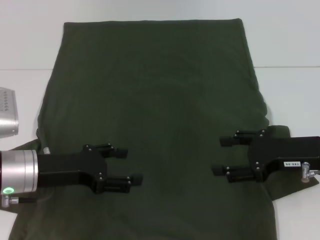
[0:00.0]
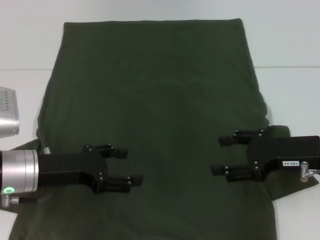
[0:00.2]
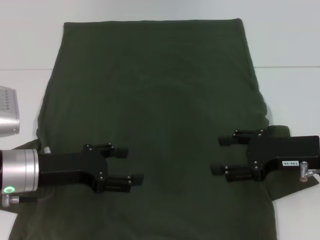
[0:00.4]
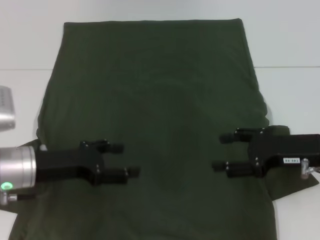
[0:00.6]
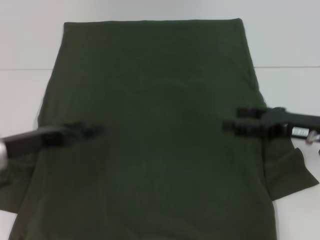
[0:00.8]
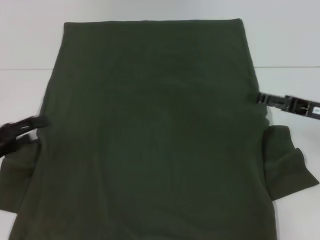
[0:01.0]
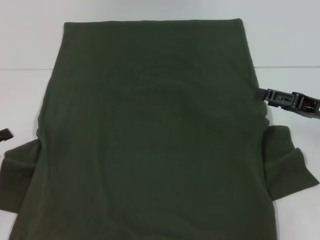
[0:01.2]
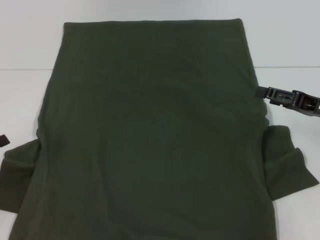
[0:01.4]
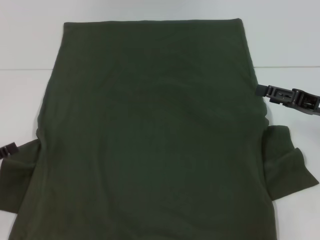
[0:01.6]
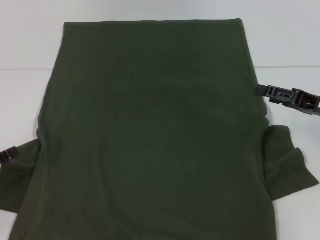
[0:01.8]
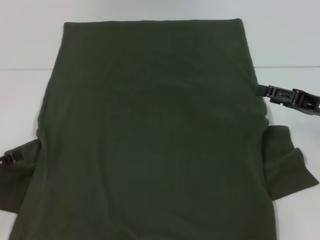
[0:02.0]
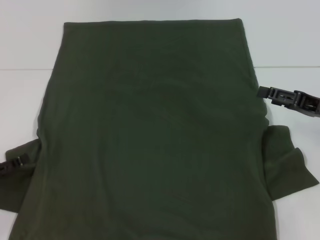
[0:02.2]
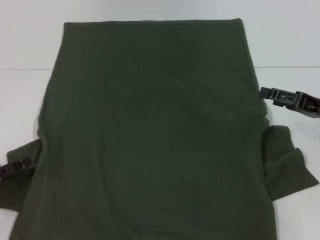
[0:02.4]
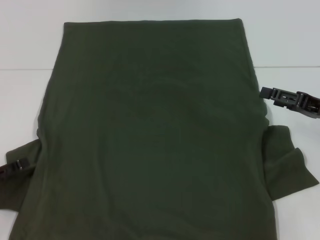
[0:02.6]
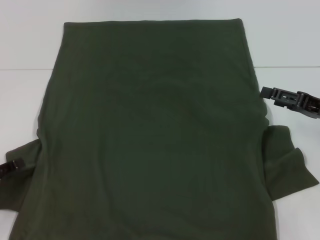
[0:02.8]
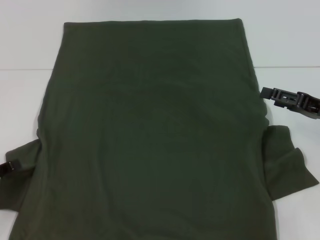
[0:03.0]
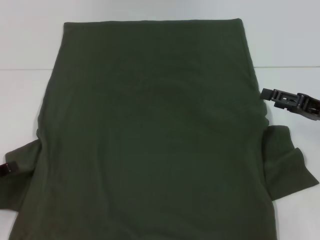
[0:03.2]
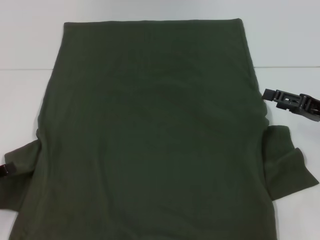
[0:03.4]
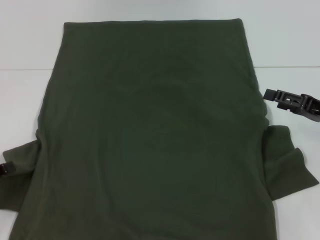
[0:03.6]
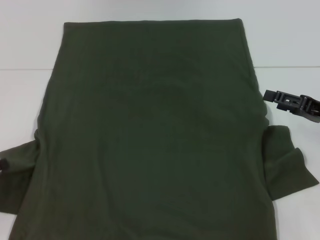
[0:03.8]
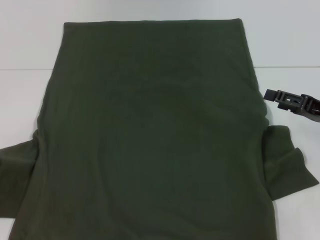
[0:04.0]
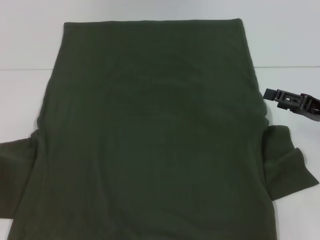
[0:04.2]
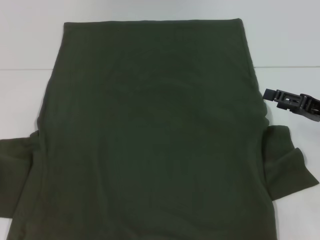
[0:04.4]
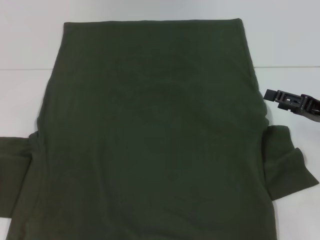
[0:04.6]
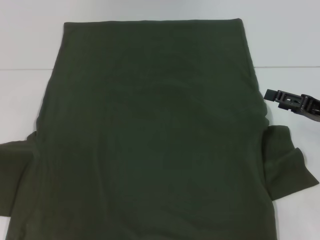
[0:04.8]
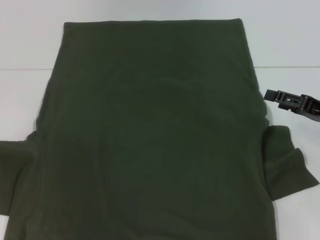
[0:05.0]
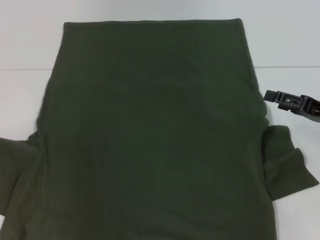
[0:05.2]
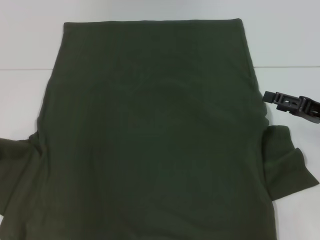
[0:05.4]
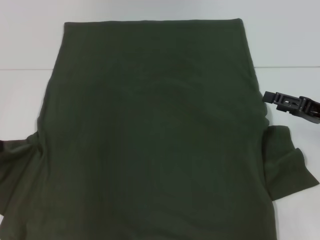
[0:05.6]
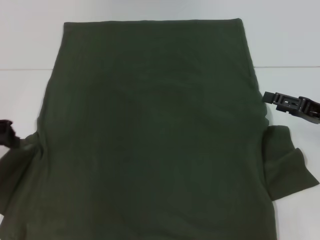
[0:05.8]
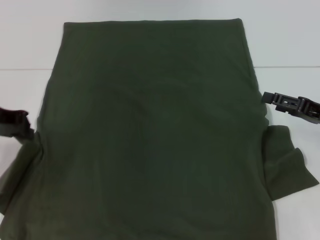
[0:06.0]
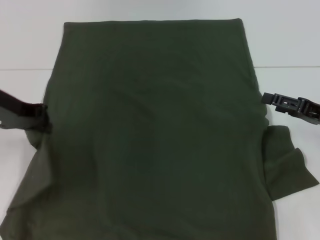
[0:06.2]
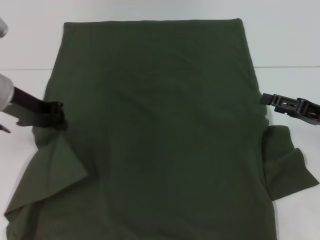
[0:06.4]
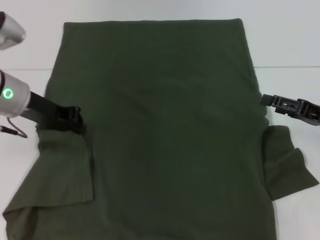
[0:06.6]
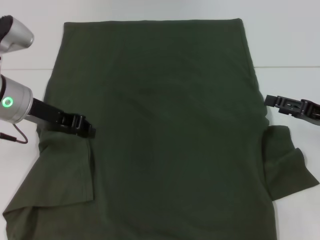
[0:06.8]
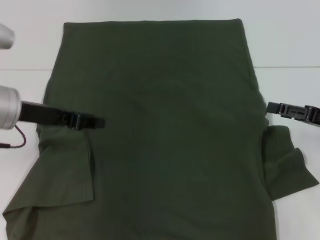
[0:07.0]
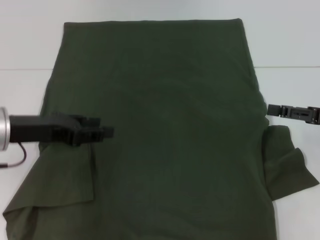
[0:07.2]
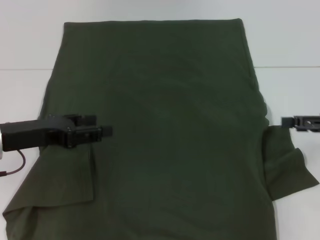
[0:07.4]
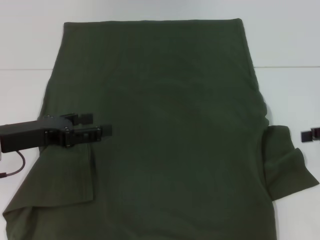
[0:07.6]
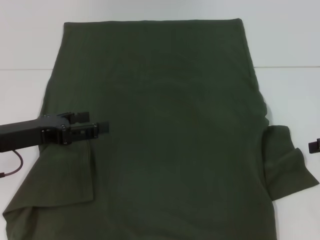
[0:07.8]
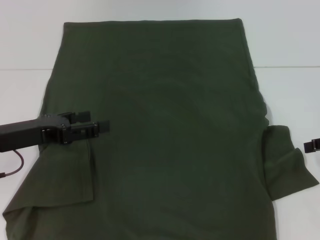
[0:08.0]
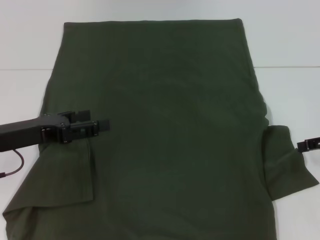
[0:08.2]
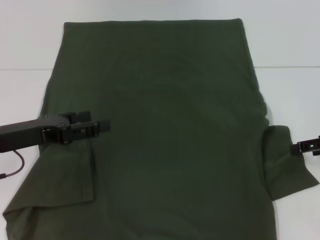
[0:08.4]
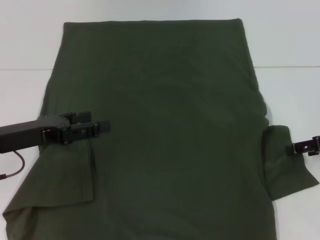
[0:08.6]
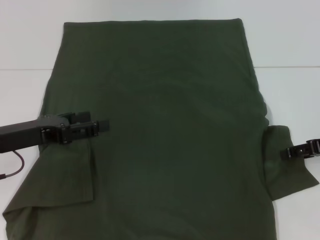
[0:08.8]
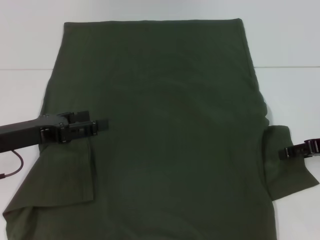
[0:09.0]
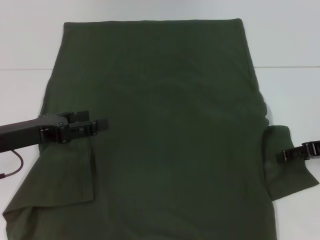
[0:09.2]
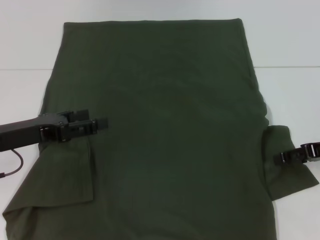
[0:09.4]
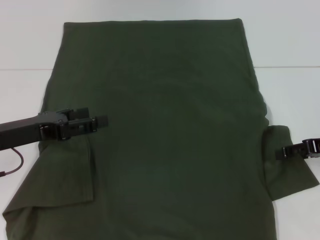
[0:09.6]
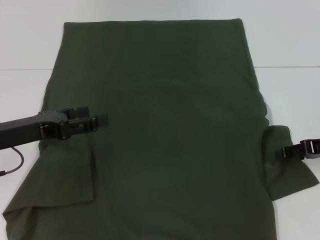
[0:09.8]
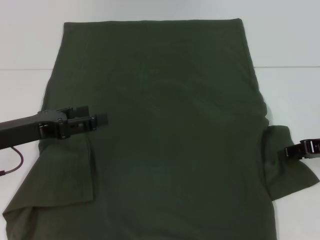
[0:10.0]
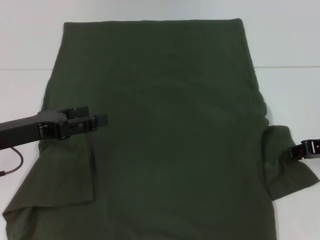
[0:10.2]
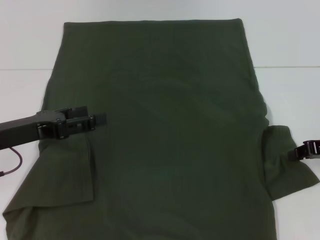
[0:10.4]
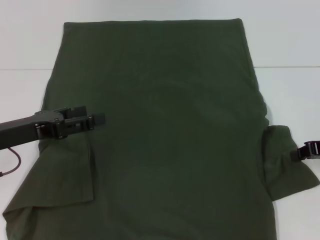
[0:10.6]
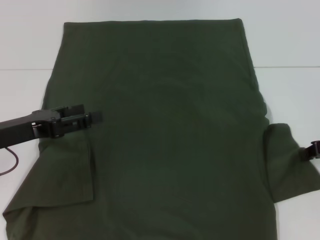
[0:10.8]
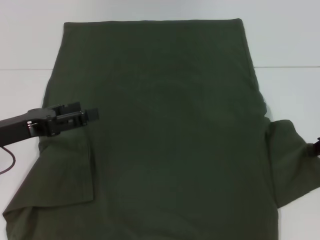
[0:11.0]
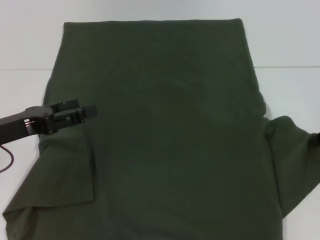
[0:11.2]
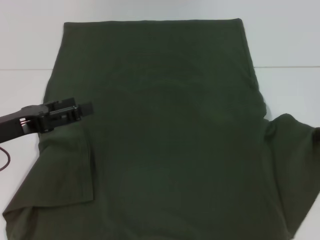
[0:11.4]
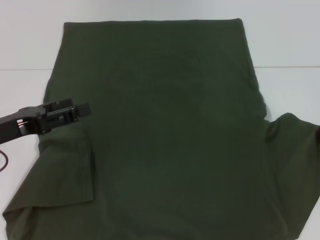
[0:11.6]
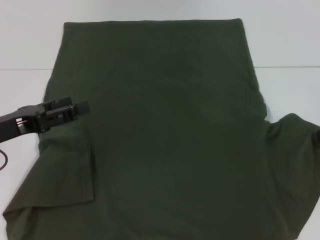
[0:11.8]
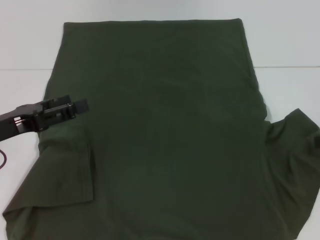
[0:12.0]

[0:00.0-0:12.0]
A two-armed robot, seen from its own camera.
Step, 0:00.0 to 0:11.6: Fold the bottom left sleeve with your left hand.
0:00.0 to 0:01.6: The right gripper shifts some 5 cm to the right. Meanwhile the left gripper shifts roughly 15 cm to the left.
0:01.6 to 0:03.0: The grippers move only a little.
0:03.0 to 0:04.4: The left gripper moves upward, some 5 cm, and closes its fingers.
0:04.4 to 0:06.0: The left gripper heads to the right, upward and forward, covering some 15 cm.
0:06.0 to 0:07.6: The right gripper goes approximately 5 cm upward. Meanwhile the left gripper is displaced downward and backward by roughly 10 cm, and opens its fingers.
0:07.6 to 0:09.0: The right gripper ends up some 5 cm from where it was.
0:10.4 to 0:12.0: The grippers make only small movements.

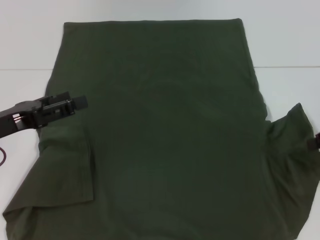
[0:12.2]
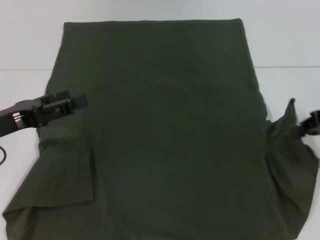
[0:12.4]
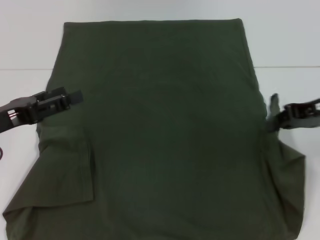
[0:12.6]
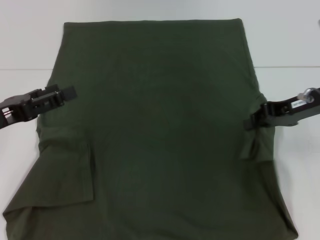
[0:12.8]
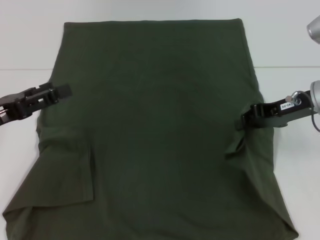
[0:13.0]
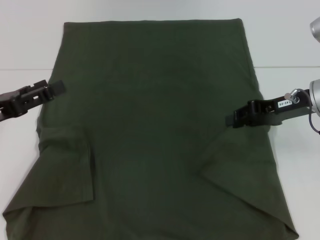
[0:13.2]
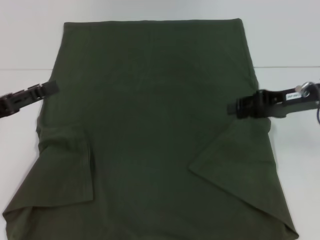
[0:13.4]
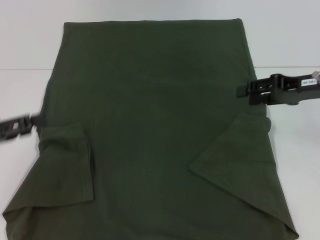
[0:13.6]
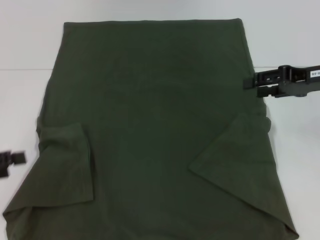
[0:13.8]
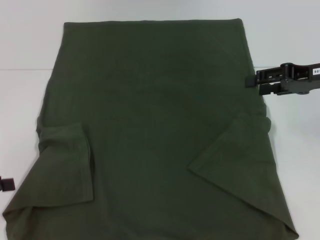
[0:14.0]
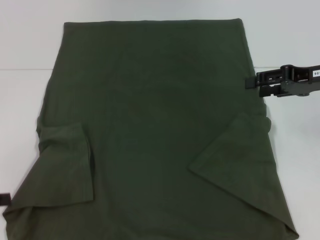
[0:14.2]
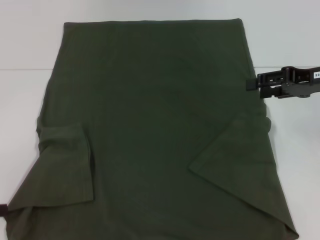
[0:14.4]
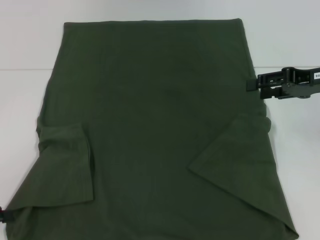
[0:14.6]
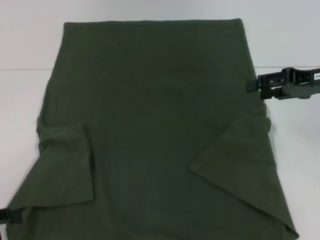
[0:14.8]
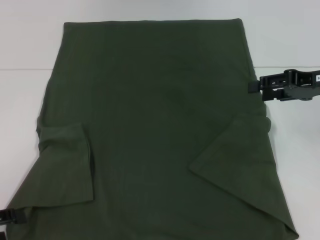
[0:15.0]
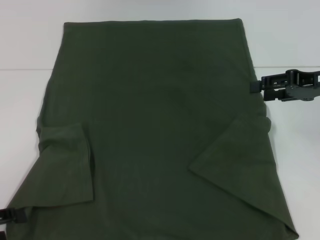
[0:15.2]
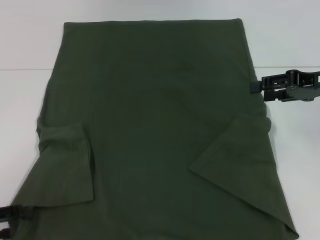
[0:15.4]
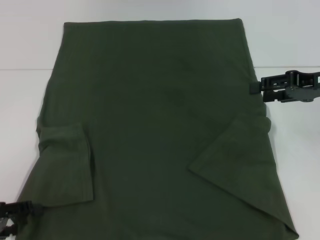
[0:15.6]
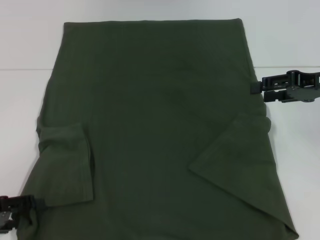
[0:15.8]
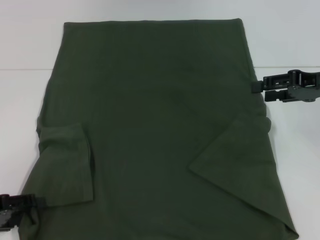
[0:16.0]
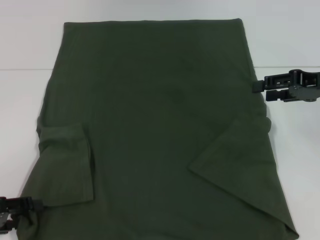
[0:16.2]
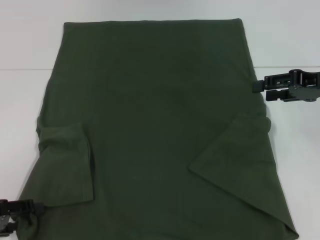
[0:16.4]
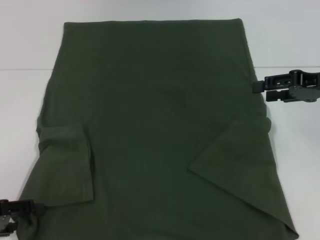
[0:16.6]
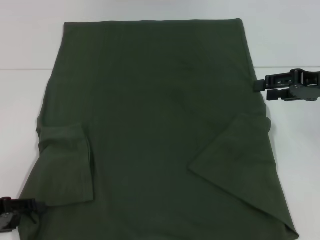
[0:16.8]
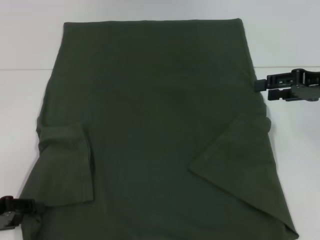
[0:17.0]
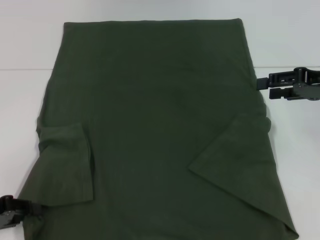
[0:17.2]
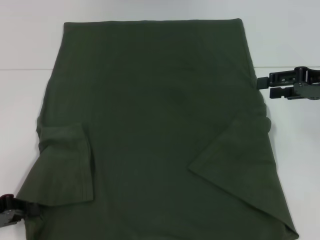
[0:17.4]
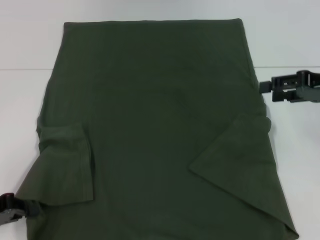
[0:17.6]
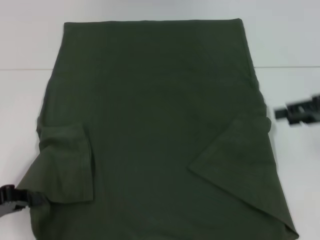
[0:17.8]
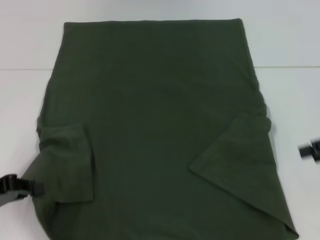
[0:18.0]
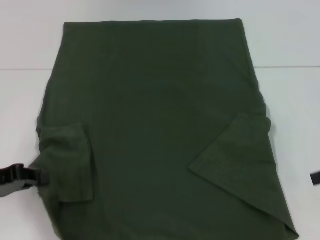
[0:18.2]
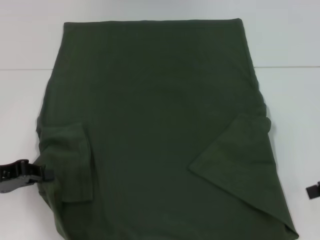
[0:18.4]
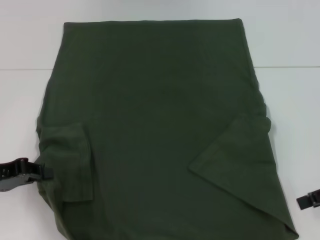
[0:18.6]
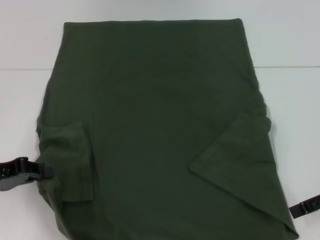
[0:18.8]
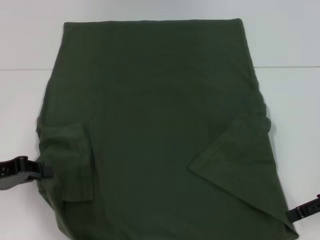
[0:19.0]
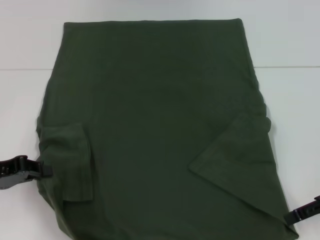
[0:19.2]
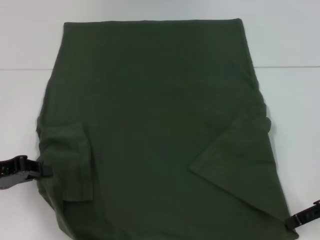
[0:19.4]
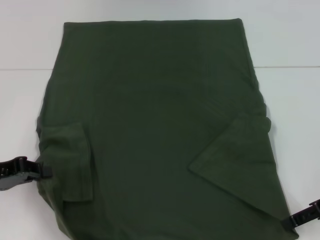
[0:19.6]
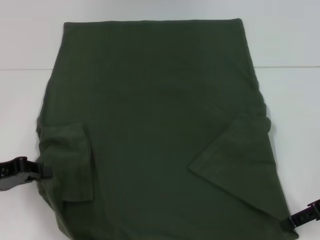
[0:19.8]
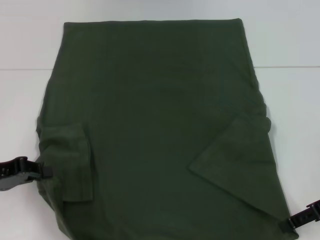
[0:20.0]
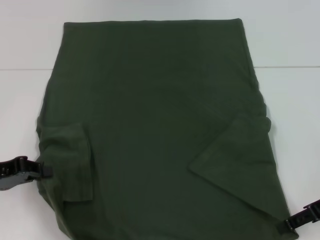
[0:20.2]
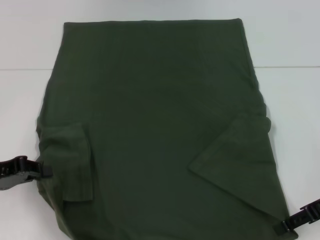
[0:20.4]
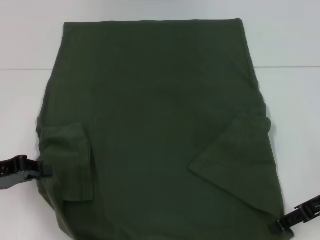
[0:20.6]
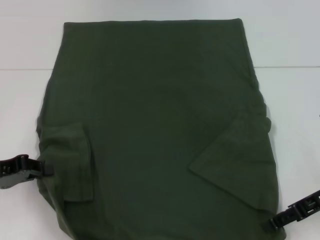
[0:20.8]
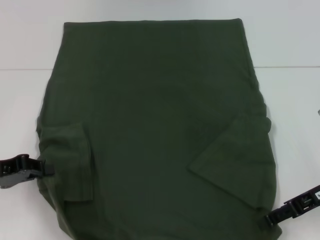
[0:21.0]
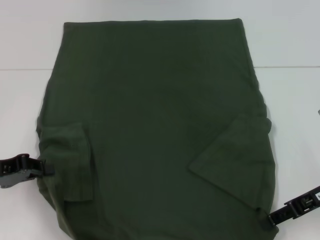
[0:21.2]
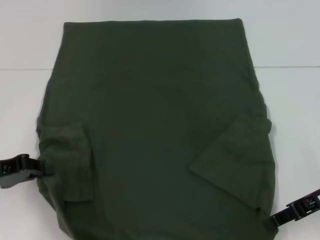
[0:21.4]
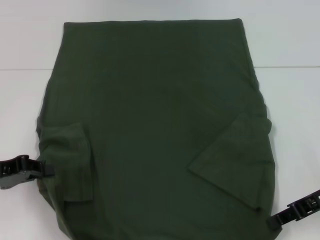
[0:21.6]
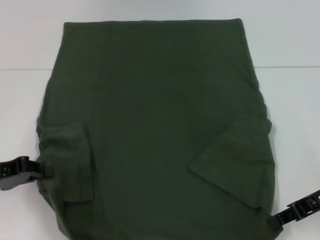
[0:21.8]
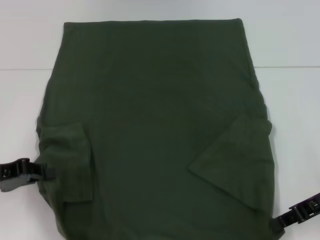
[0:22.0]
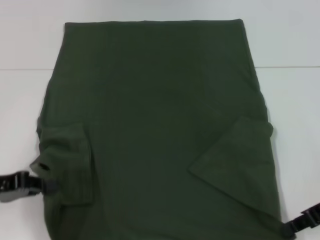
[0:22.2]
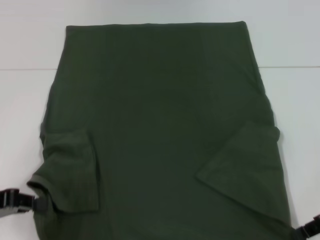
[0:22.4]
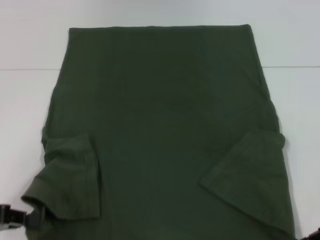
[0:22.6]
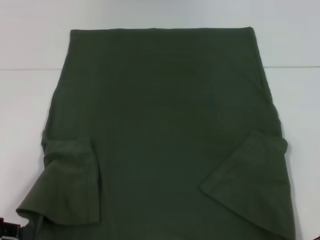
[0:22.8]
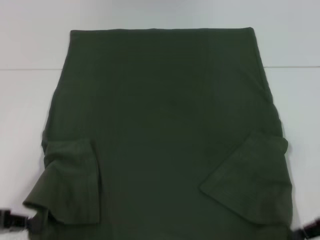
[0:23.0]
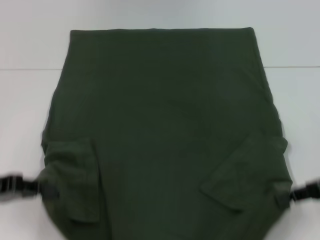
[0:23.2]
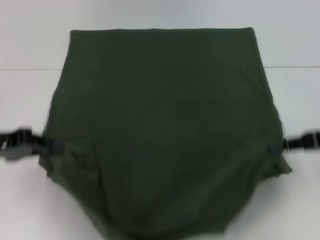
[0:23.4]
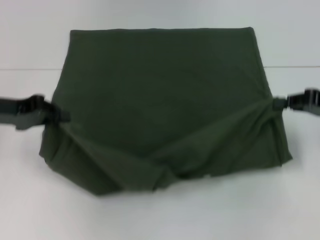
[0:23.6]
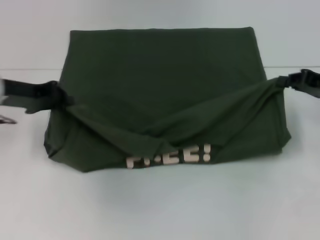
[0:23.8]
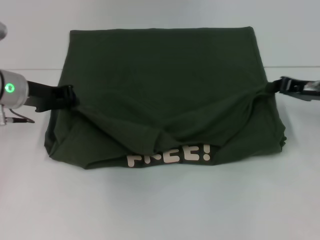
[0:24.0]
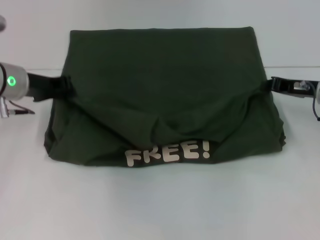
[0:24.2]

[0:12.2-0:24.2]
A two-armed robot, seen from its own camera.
Step, 0:12.2 to 0:13.6: Fold the bottom right sleeve with your right hand.
Step, 0:13.8 to 0:17.0: Grab the bottom left corner with your left hand.
Step, 0:17.2 to 0:21.0: Grab the bottom right corner with your right hand.
0:12.2 to 0:13.8: Both grippers travel together to the left, approximately 5 cm. The right gripper opens its fingers.
0:13.8 to 0:15.2: The left gripper travels downward by about 5 cm.
0:15.2 to 0:16.6: The grippers move only a little.
0:16.6 to 0:18.2: The left gripper closes; the right gripper heads backward and to the right, covering about 10 cm.
0:18.2 to 0:19.8: The right gripper goes about 5 cm to the left.
0:19.8 to 0:21.2: The grippers stay close to where they were, moving slightly.
0:21.2 to 0:22.6: The left gripper is displaced backward by about 5 cm; the right gripper closes.
0:22.6 to 0:24.2: The left gripper travels forward and to the right by approximately 20 cm. The right gripper is displaced forward by about 15 cm.
